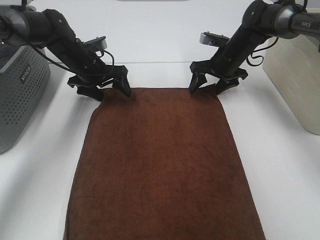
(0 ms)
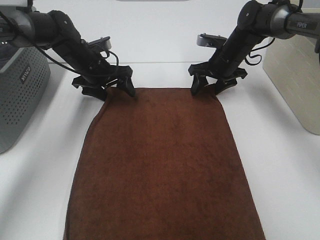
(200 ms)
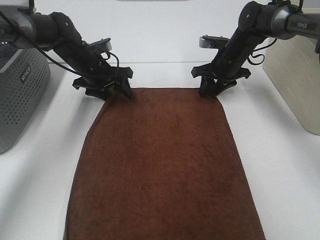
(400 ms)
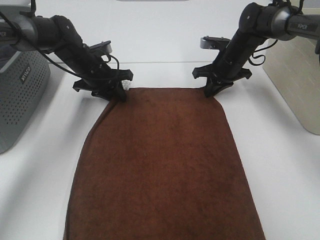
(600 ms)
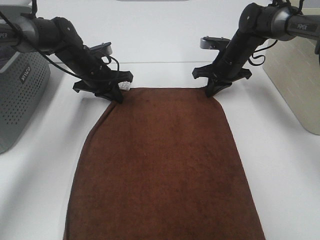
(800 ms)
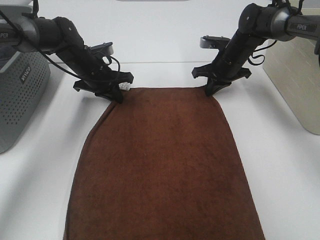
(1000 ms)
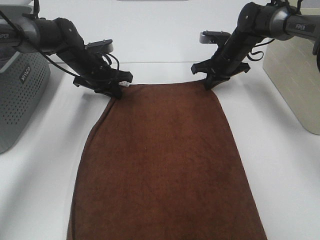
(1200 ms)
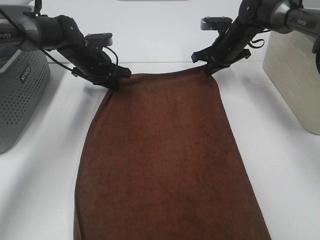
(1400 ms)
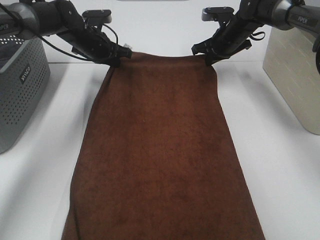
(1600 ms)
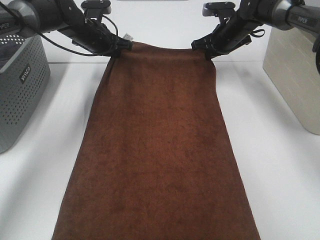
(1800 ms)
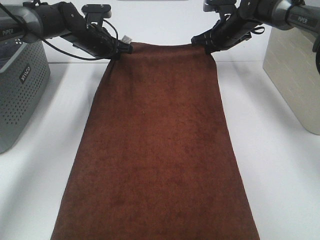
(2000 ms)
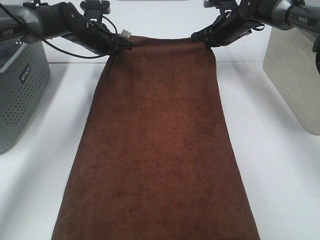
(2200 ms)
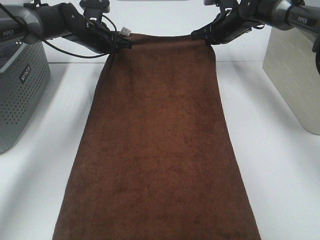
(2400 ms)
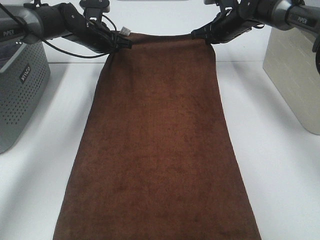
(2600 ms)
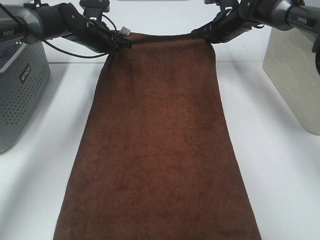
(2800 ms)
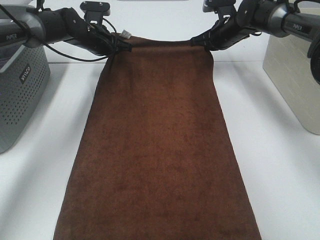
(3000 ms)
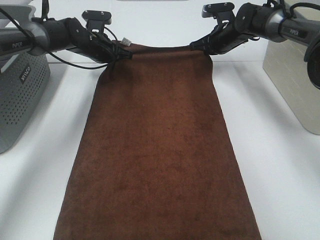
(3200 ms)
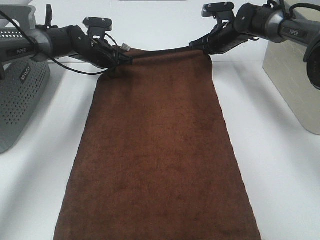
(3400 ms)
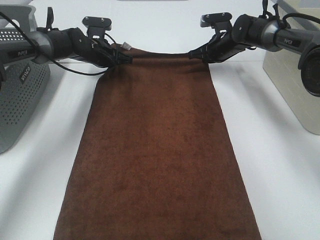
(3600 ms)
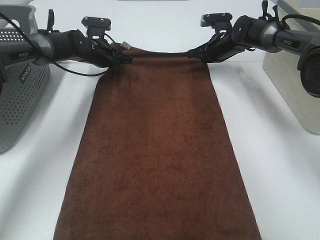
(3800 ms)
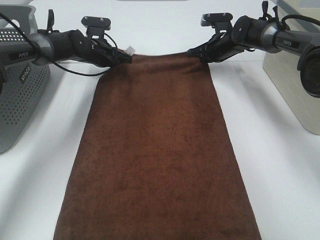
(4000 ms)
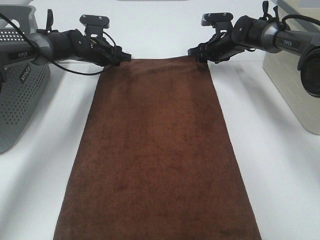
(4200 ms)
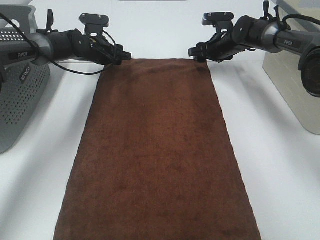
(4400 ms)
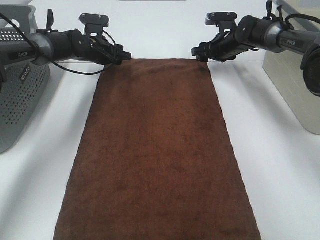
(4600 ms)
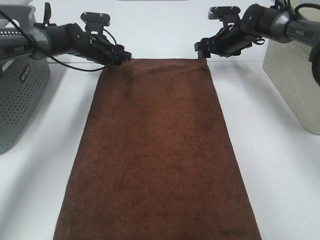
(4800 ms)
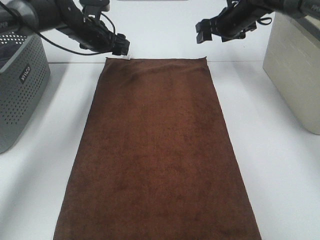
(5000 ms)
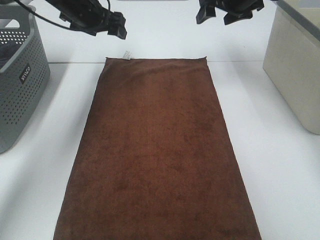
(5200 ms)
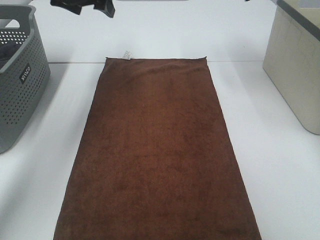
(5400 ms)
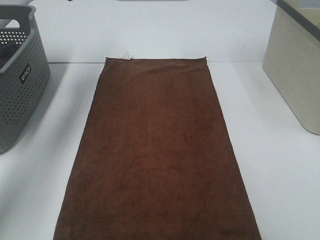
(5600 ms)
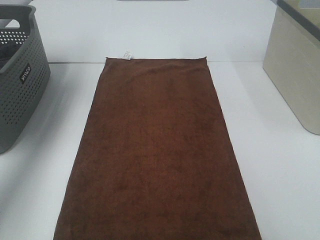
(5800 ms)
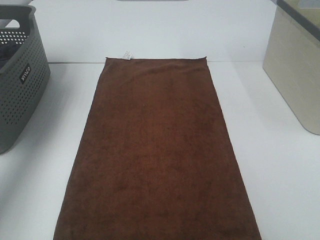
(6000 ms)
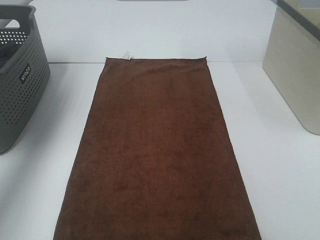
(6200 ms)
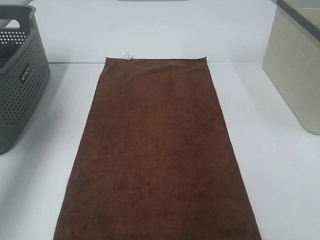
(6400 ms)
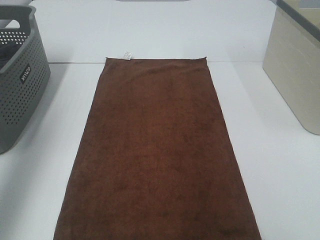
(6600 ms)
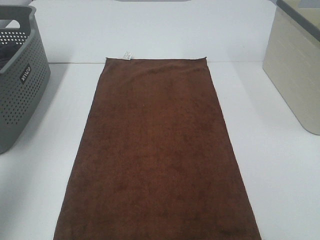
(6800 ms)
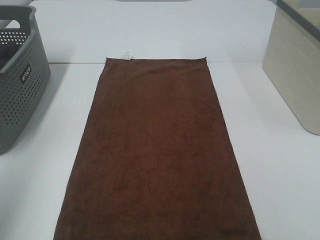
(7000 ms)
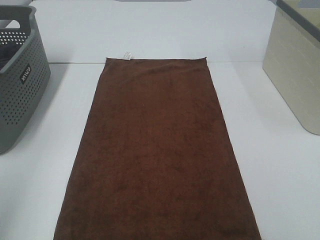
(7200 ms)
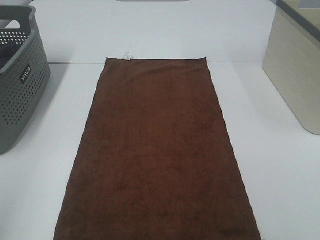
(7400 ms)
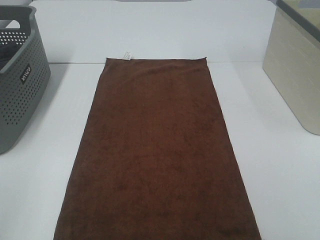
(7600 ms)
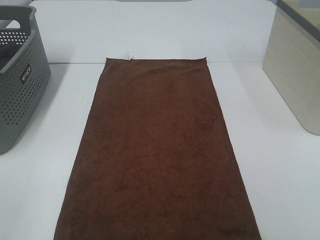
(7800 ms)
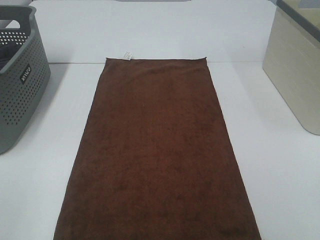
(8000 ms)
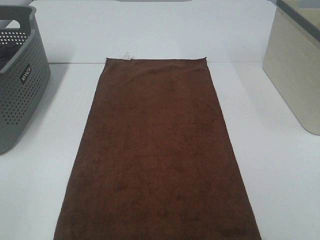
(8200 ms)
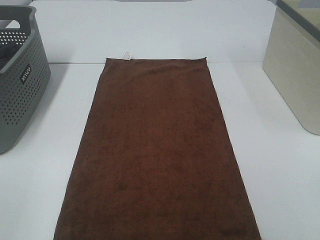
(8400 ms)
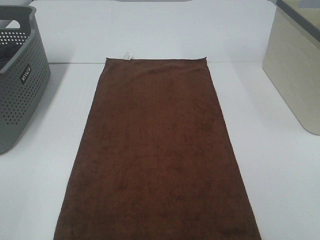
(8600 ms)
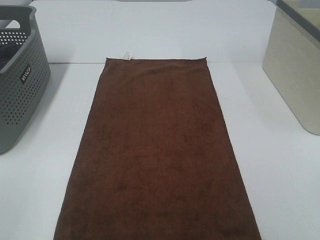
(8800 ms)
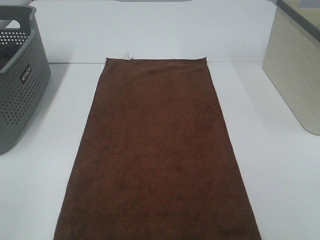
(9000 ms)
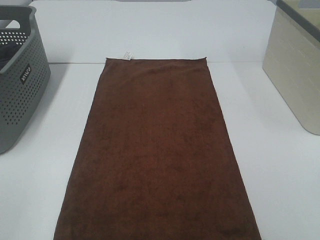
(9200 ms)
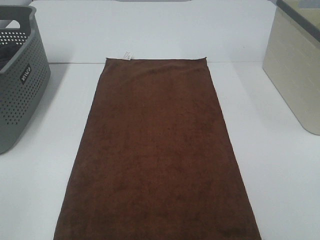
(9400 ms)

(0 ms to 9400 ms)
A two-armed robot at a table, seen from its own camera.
Task of the whole recording: Remove the towel and place it.
0 ms - 1600 ms: The left gripper moves about 5 cm, and closes up; the right gripper shifts by approximately 5 cm, and closes up.
1600 ms - 3200 ms: The grippers move only a little.
3200 ms - 4800 ms: The left gripper opens. The right gripper opens.
4800 ms - 6200 ms: The left gripper goes about 35 cm upward, backward and to the left, while the right gripper goes about 40 cm upward and backward.
6200 ms - 7800 ms: The left gripper is displaced backward by some 40 cm.

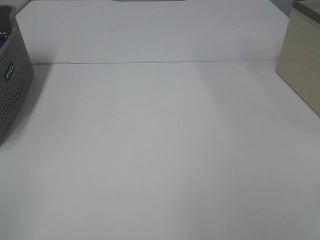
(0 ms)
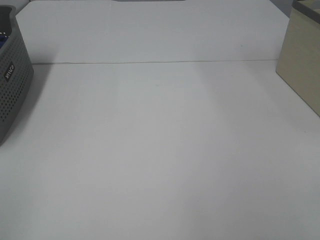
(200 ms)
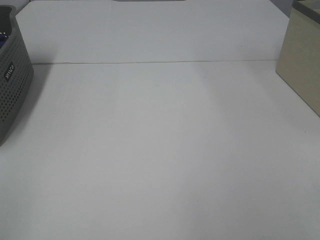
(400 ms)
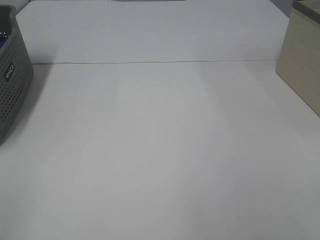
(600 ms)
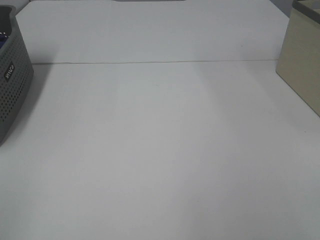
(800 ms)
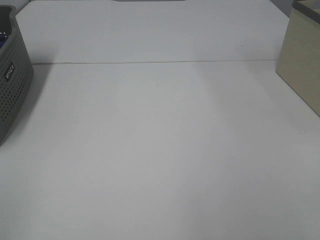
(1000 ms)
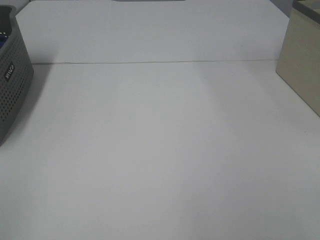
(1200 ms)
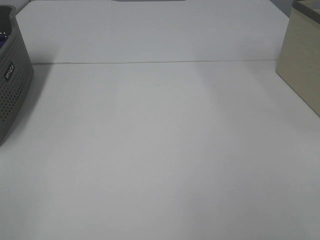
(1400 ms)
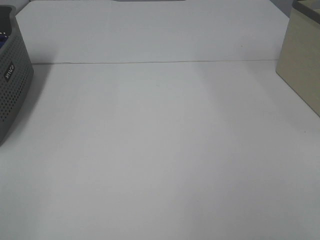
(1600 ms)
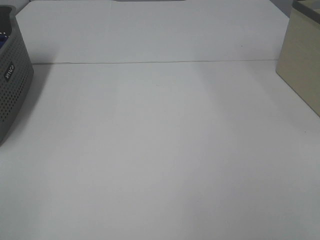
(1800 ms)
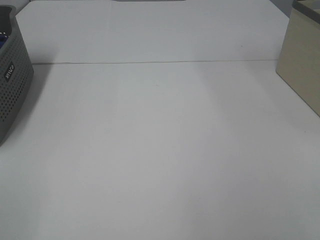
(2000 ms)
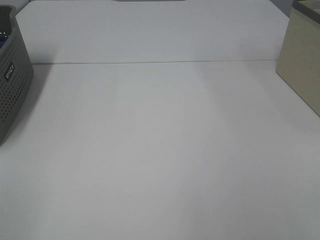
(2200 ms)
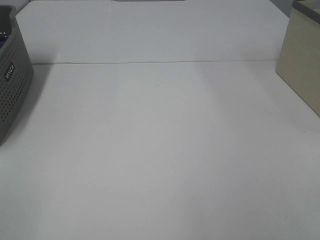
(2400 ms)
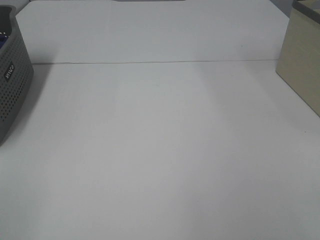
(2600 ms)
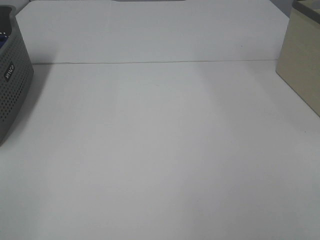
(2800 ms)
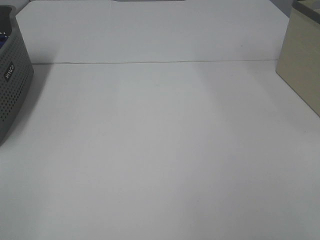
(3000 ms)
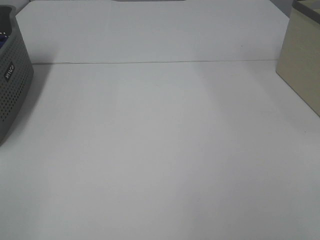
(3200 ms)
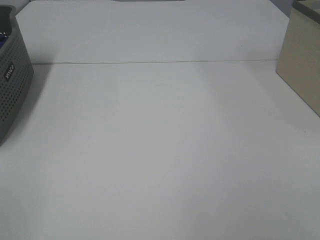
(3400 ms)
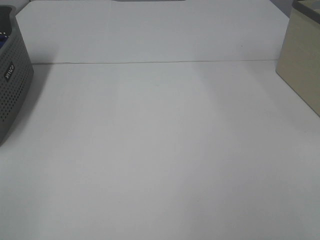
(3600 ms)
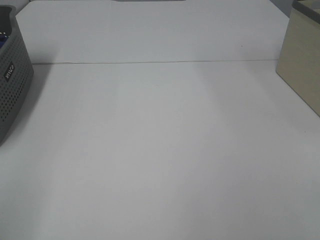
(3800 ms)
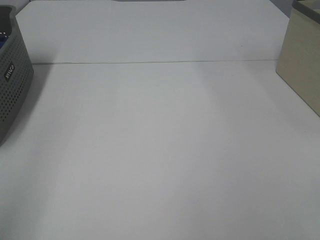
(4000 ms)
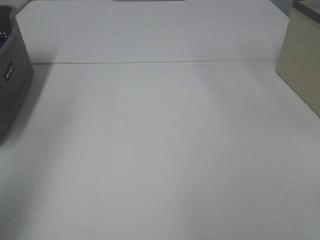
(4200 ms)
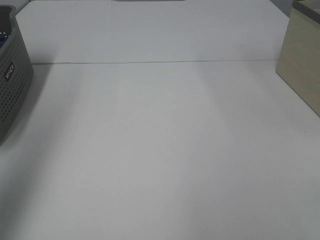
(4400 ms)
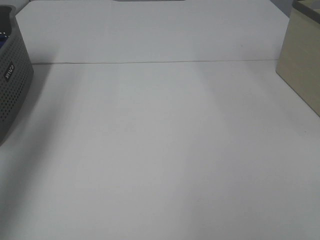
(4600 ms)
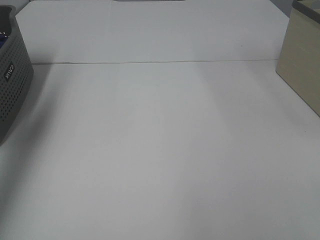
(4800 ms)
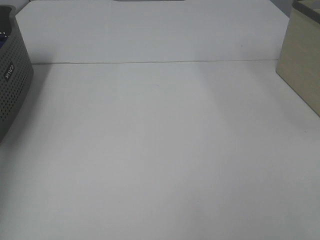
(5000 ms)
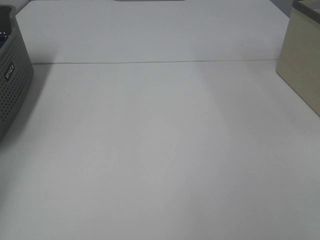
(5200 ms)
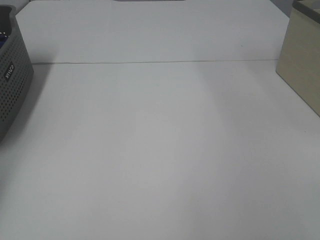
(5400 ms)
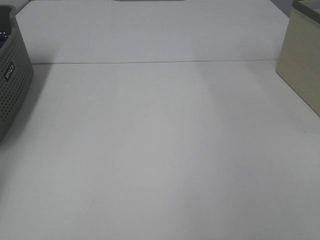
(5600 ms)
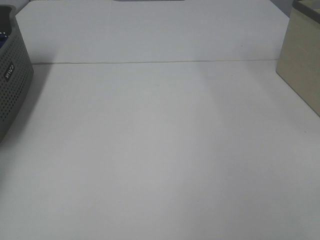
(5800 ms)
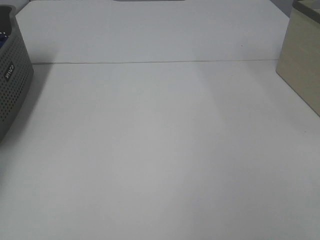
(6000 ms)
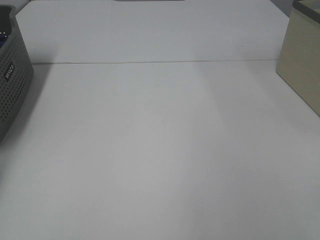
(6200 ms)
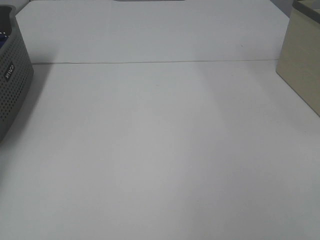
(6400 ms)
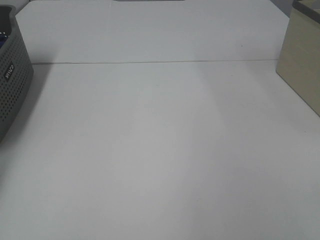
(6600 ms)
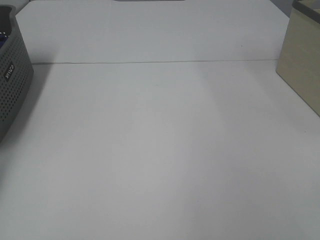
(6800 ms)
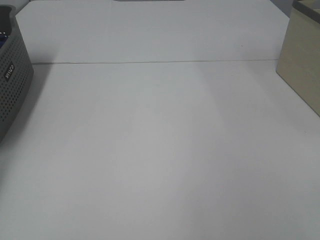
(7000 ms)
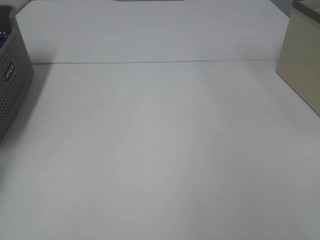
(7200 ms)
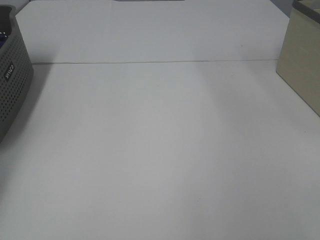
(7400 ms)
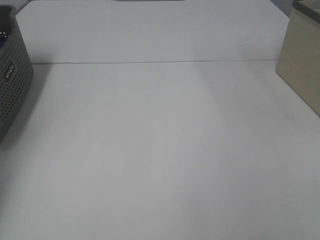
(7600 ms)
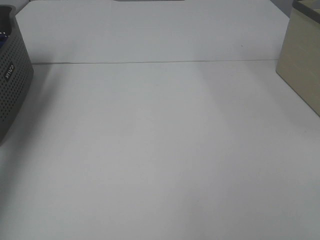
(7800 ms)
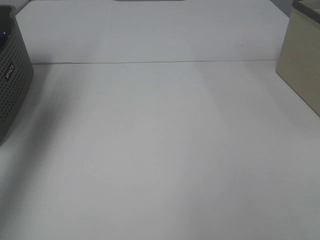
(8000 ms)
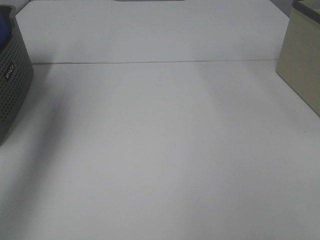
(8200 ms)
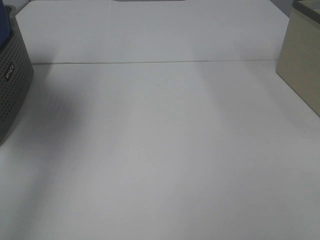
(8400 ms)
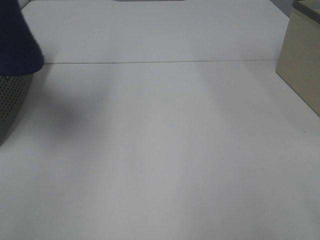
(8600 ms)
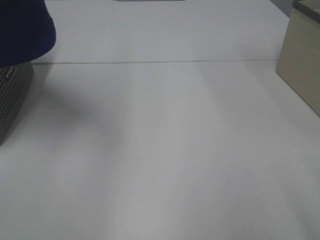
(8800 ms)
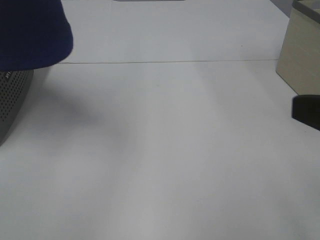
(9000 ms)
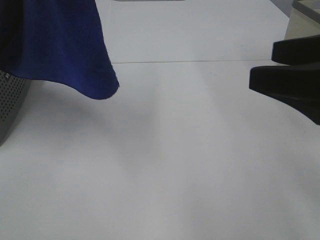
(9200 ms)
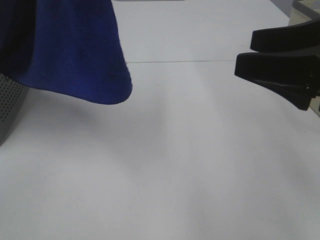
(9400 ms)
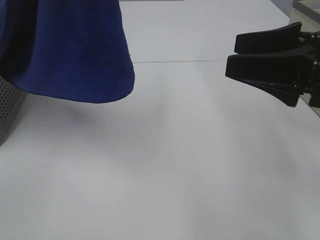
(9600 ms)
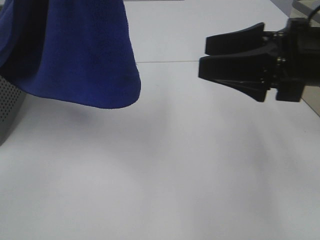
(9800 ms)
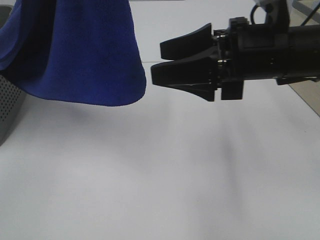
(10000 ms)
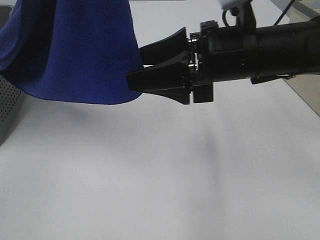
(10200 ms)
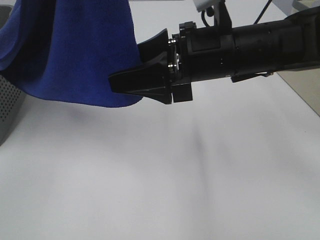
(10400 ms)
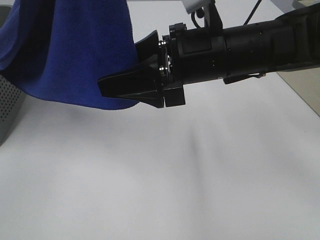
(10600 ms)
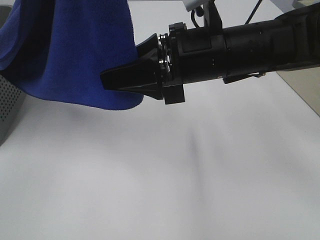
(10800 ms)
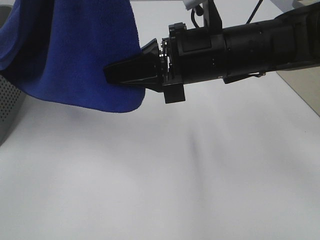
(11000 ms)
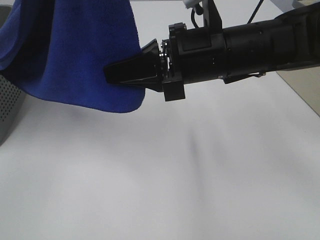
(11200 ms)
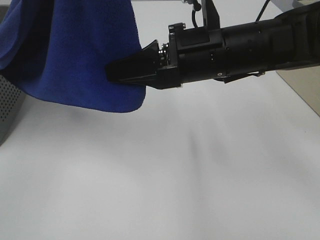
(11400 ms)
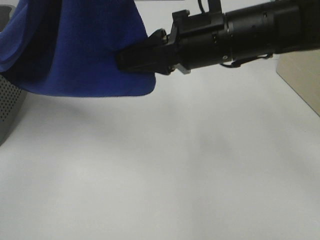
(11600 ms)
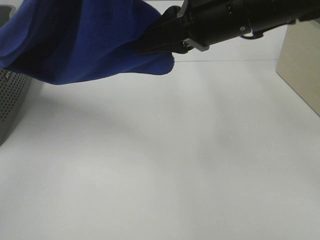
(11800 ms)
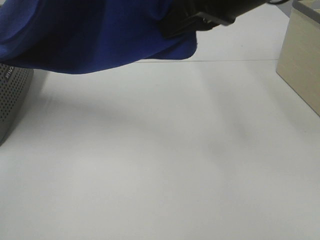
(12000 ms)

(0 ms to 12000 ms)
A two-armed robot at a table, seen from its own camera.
Task of the whole recording: Remove the towel and place it.
Step, 8400 ms - 10800 ms: Right hand: grab a corner of the blue towel and straighten it.
1600 ms - 3000 ms: Neither gripper changes place.
3000 ms - 4400 ms: The left gripper shifts about 25 cm forward and upward.
4400 ms - 6000 ms: The left gripper moves forward, downward and to the left, some 35 cm.
7600 ms - 9000 ms: The left gripper goes about 40 cm to the right, upward and backward. The right gripper travels forward by roughly 10 cm.
9000 ms - 10400 ms: The right gripper moves forward and to the left, some 25 cm, while the left gripper shifts roughly 5 cm to the right.
10400 ms - 12000 ms: The right gripper heads upward, covering about 10 cm, and closes its fingers.

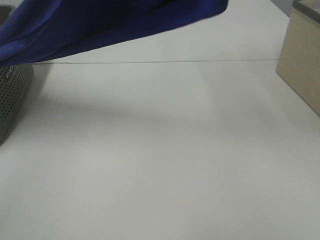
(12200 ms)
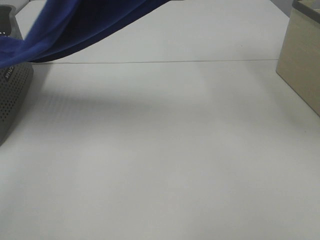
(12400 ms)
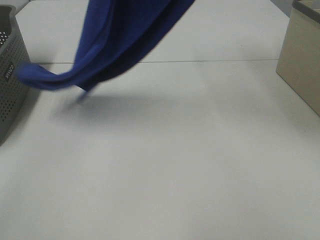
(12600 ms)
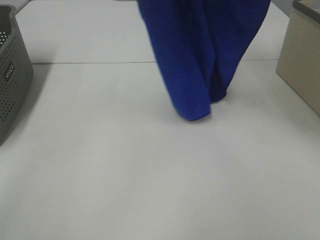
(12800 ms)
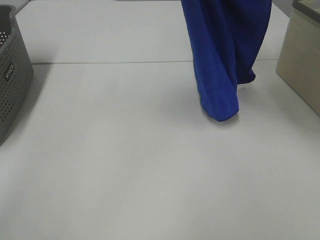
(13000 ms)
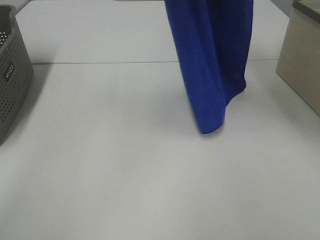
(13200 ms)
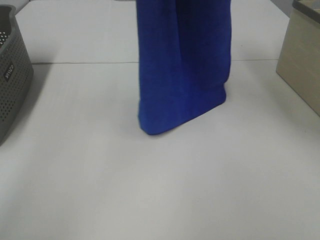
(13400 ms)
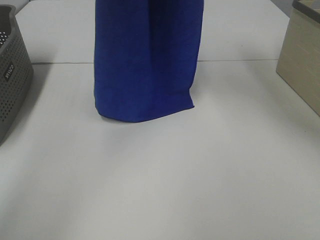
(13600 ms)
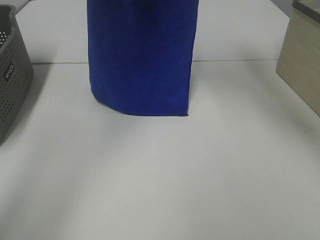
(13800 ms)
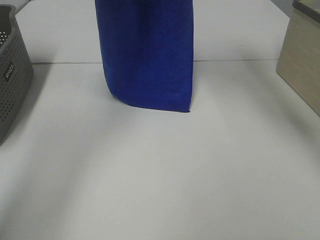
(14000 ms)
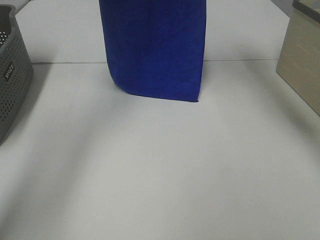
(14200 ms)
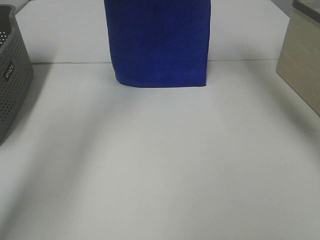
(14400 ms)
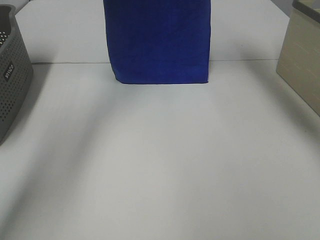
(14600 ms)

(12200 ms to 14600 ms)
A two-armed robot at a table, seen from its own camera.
Task of the whole recording: Remove the towel and place it.
12200 ms - 13400 ms: The left gripper is displaced forward by about 10 cm. The right gripper goes some 10 cm upward and forward.
13400 ms - 14600 ms: The left gripper moves forward, downward and to the left, some 15 cm; the right gripper travels forward by roughly 10 cm.
